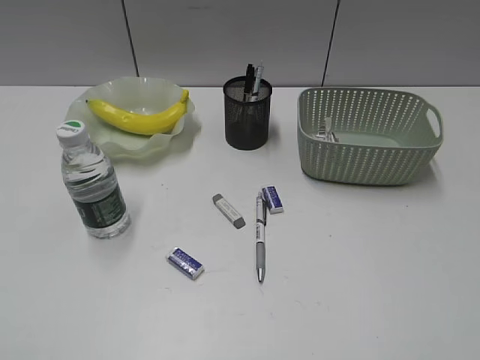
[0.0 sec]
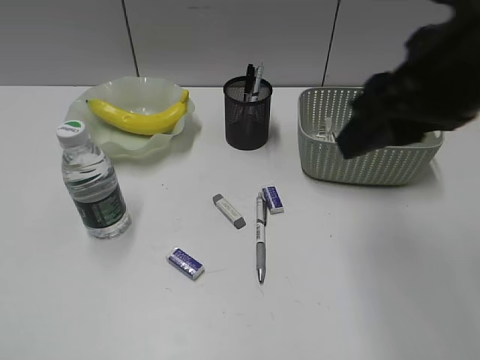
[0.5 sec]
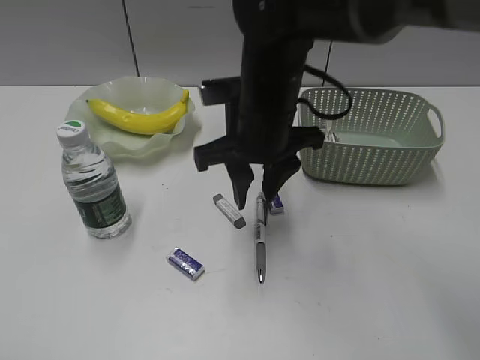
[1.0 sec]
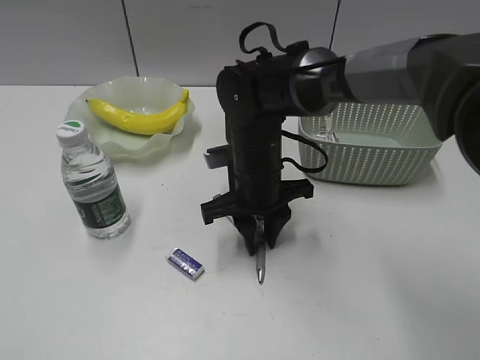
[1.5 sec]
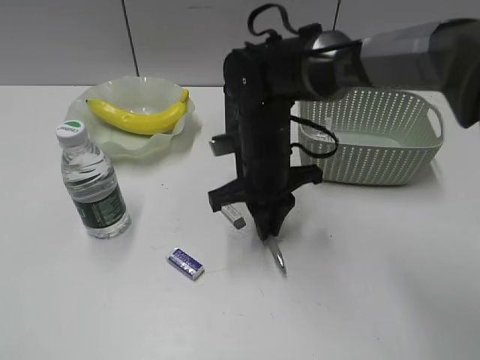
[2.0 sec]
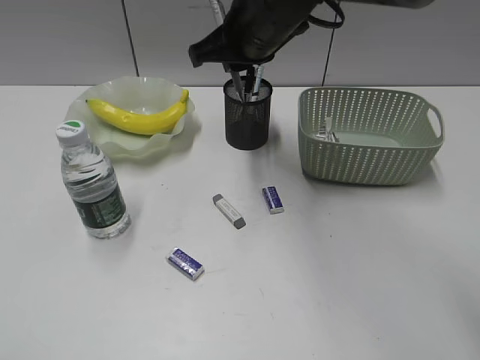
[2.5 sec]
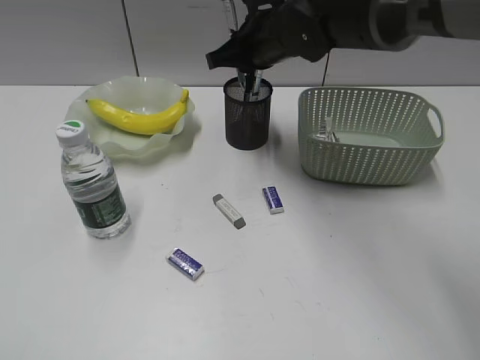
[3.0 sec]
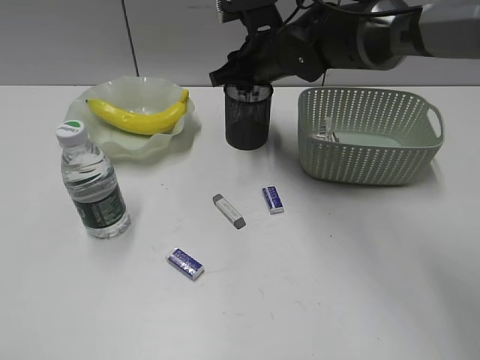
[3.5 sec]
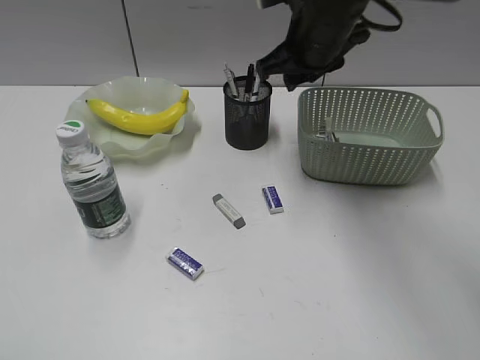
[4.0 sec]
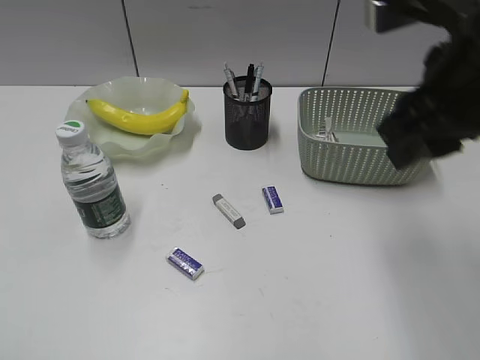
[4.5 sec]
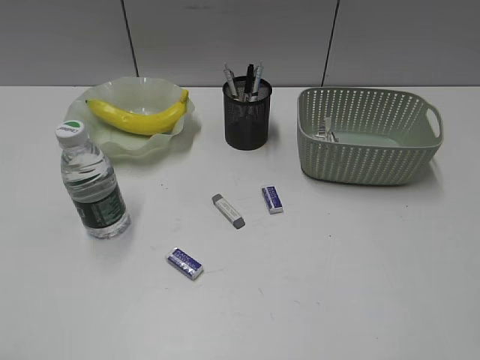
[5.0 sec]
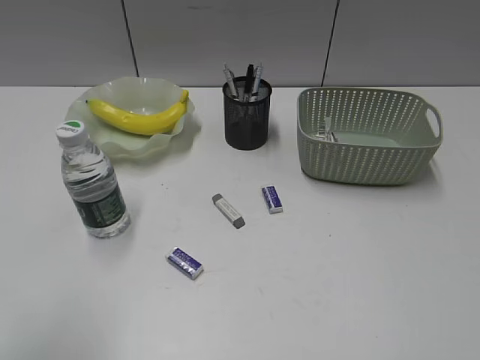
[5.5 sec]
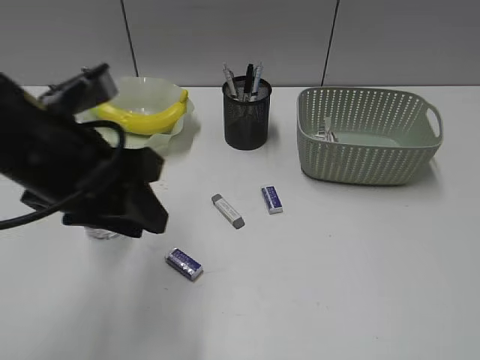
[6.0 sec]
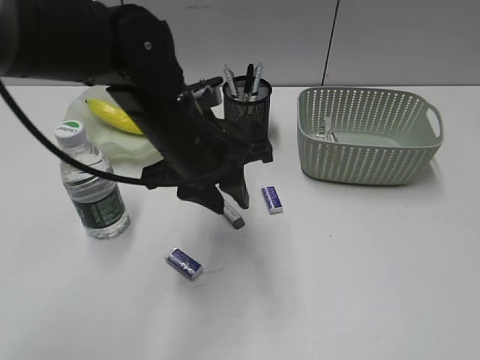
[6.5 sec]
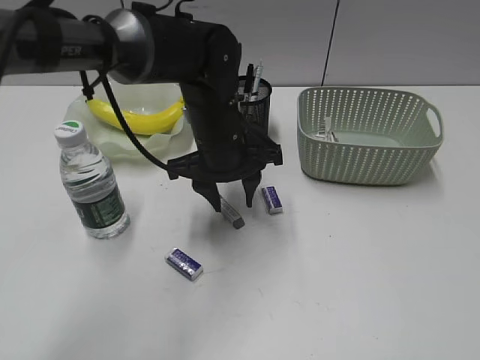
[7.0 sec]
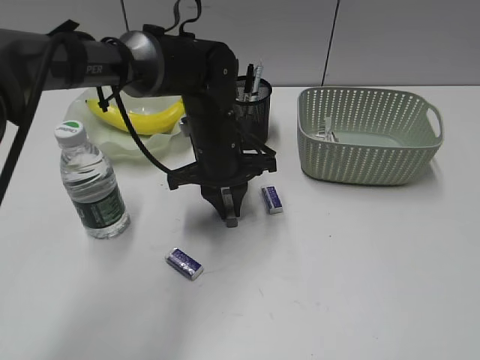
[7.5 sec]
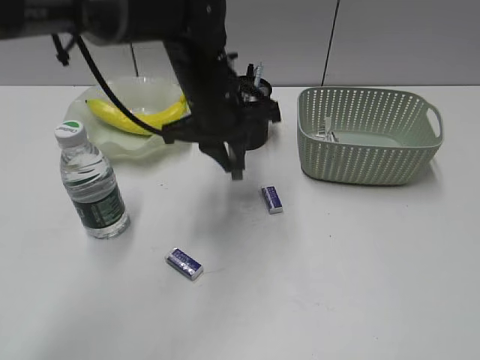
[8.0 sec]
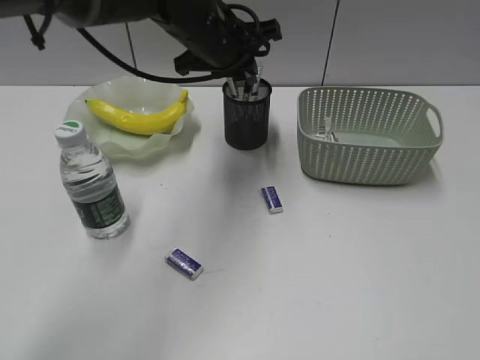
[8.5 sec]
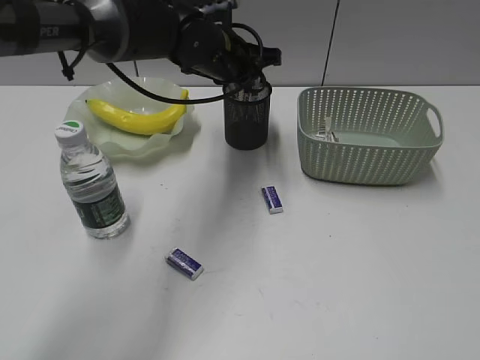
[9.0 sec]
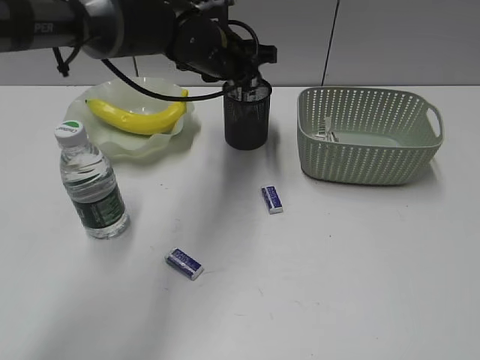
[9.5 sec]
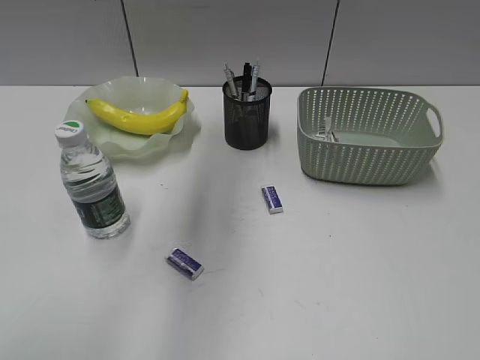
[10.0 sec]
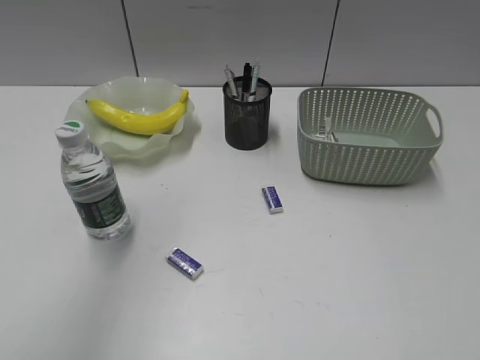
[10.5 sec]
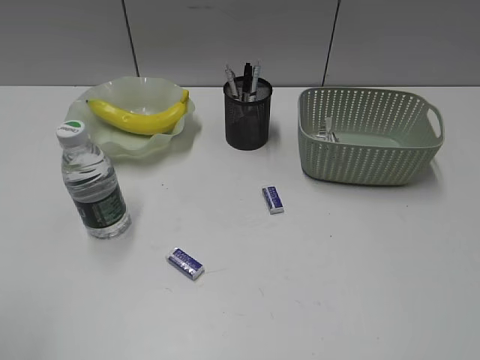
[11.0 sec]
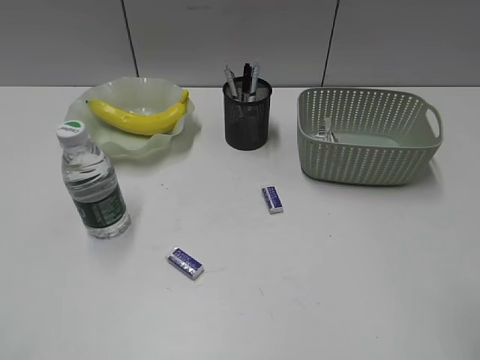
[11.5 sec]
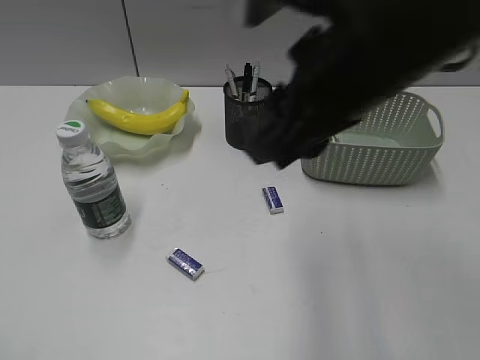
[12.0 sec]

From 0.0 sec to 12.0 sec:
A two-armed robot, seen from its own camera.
Step, from 2.0 sec to 3.5 sec: Place the gray pen in pen holder with right gripper.
Step, from 4.0 sec to 7.5 sec: Grasp the eraser with left gripper.
Step, from 8.0 sec to 9.5 sec: Place the eraser in pen holder with left gripper.
From 0.0 sec to 2.0 sec: The right gripper moves forward, to the left and downward, roughly 50 cm, and closes.
From 2.0 sec to 4.0 sec: The right gripper swings up and down, about 15 cm each way, with 2 reversals, and opens.
From 4.0 sec to 6.0 sec: The right gripper shifts roughly 50 cm backward and to the right. Meanwhile the left gripper shifts roughly 25 cm forward and to the right.
From 6.0 sec to 8.0 sec: The left gripper is displaced forward, to the right and downward by roughly 25 cm.
From 8.0 sec to 10.0 sec: The left gripper swings up and down, roughly 20 cm each way, with 2 reversals, and opens its fingers.
From 10.0 sec to 12.0 sec: The left gripper goes roughly 40 cm backward and to the left. Meanwhile the right gripper goes approximately 30 cm forward and to the left.

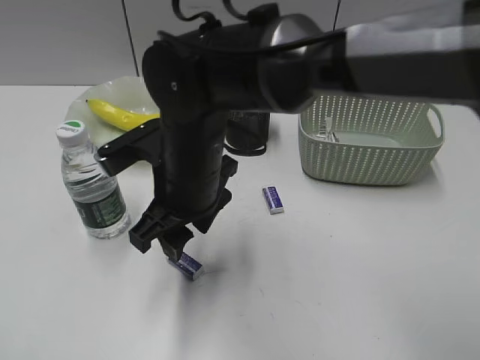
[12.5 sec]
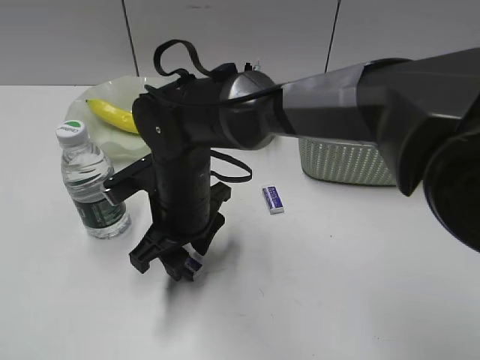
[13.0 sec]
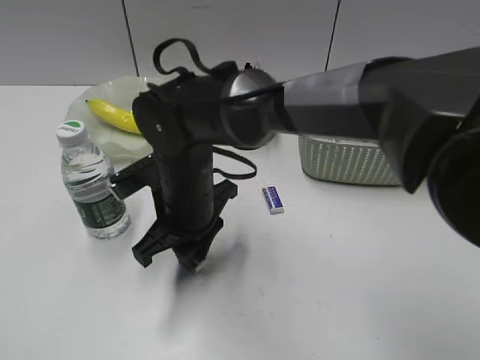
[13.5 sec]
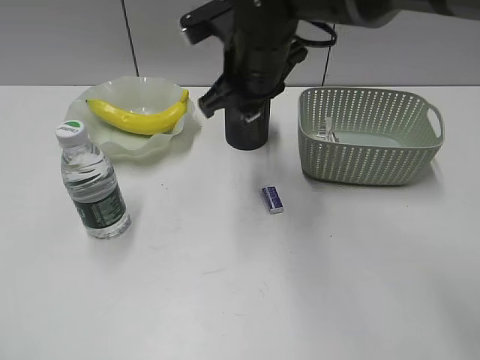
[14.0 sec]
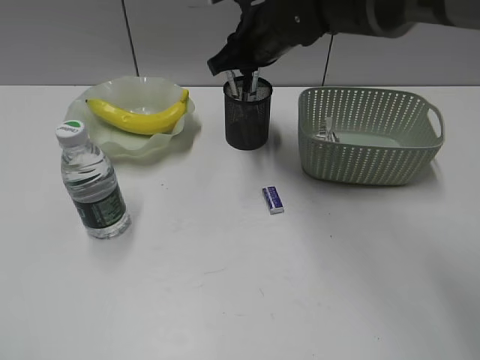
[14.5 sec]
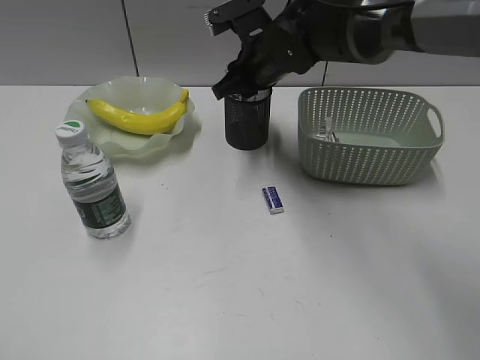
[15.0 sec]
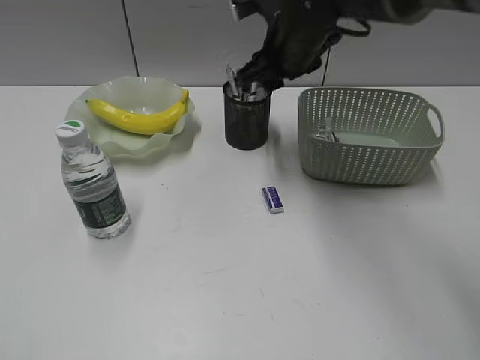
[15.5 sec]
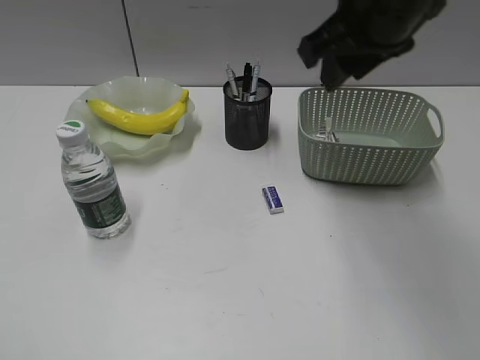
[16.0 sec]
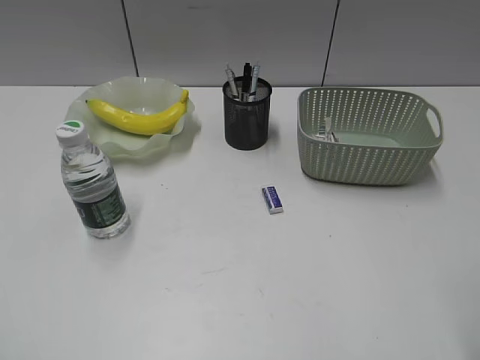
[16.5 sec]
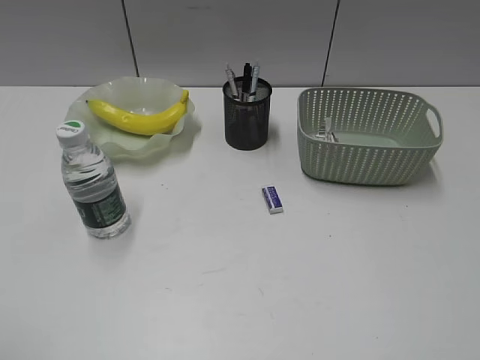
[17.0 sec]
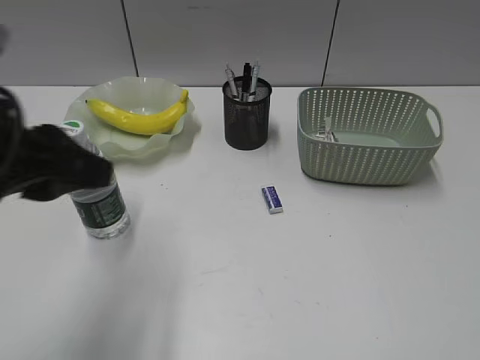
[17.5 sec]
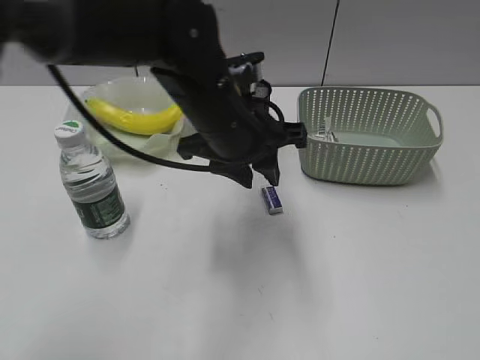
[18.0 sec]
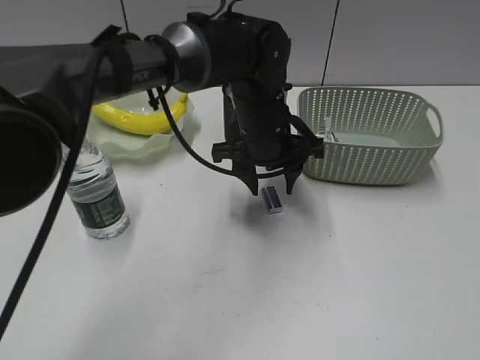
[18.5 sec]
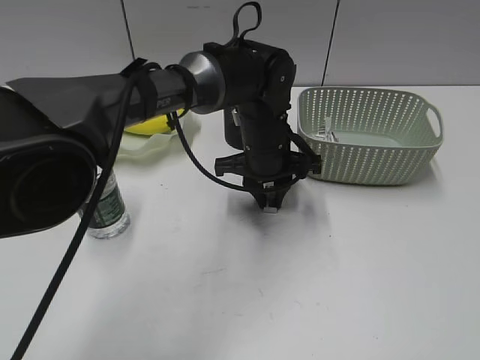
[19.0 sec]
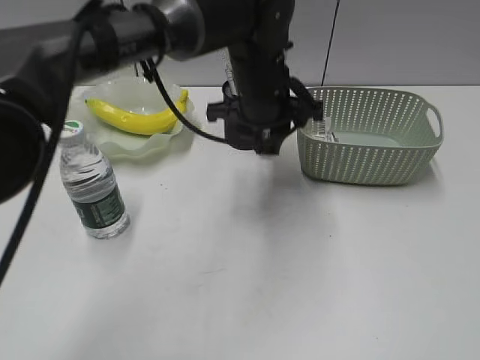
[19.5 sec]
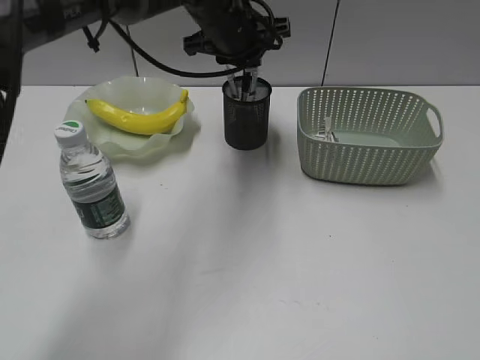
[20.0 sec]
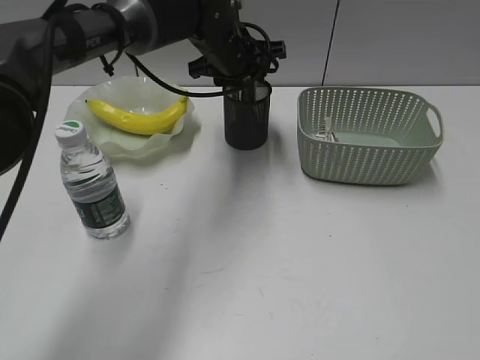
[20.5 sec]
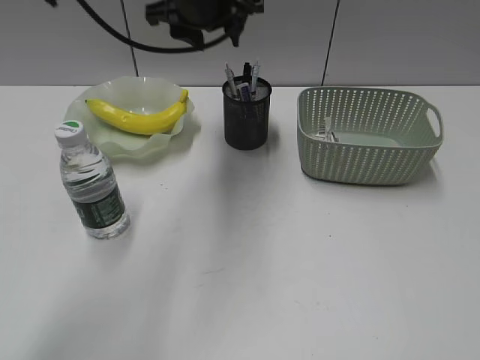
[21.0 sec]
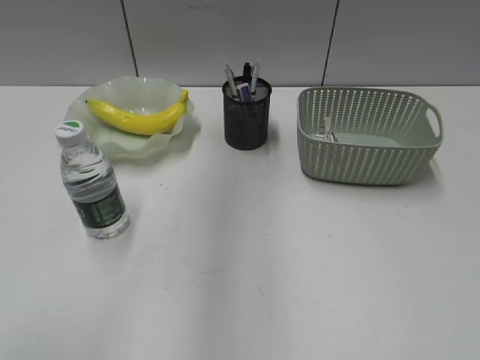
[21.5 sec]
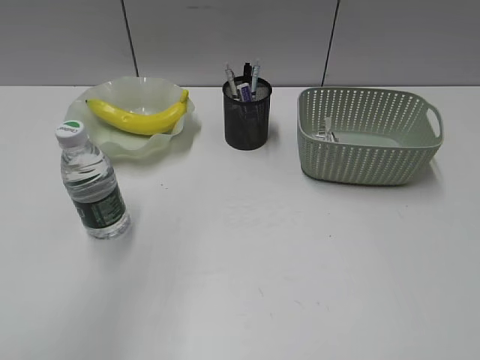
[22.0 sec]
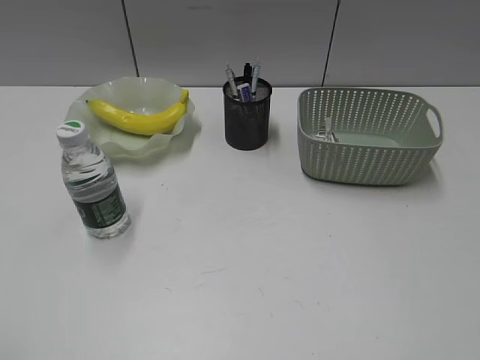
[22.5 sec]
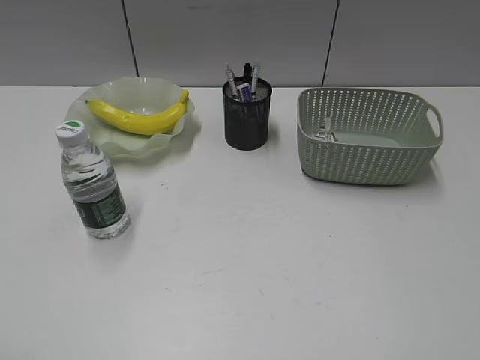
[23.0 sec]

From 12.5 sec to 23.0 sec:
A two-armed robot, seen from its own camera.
Step, from 13.5 sec to 15.0 sec: Place the eraser in pen holder with right gripper.
Step, from 15.5 sec to 19.0 sec: Grasp the eraser with left gripper.
Step, from 19.5 sec to 20.5 sec: Place the eraser in pen holder with left gripper.
From 12.5 sec to 14.5 sec: The right gripper shifts about 20 cm forward and to the right, and closes up.
From 14.5 sec to 16.5 sec: The right gripper shifts about 35 cm backward and to the right.
From 16.5 sec to 19.0 sec: The left gripper moves forward, to the right and downward, about 60 cm. Meanwhile the right gripper goes some 15 cm backward and to the right.
From 19.0 sec to 21.0 sec: The left gripper goes up and down, some 15 cm each way, reversing 2 times, and opens its fingers.
From 21.0 sec to 23.0 sec: The left gripper travels backward and to the left by roughly 50 cm.

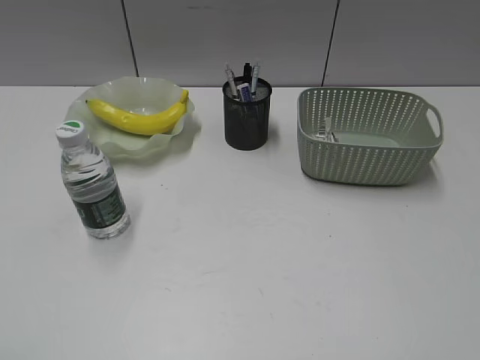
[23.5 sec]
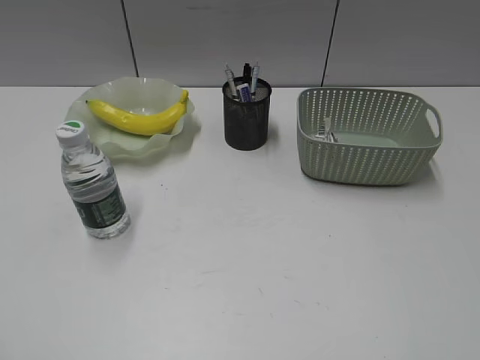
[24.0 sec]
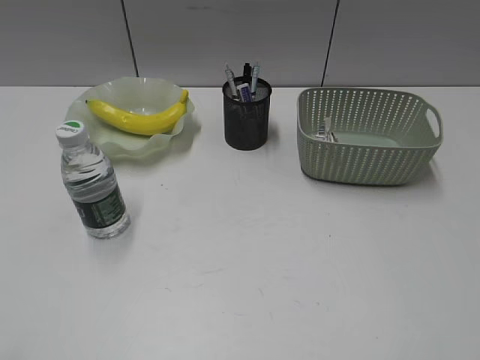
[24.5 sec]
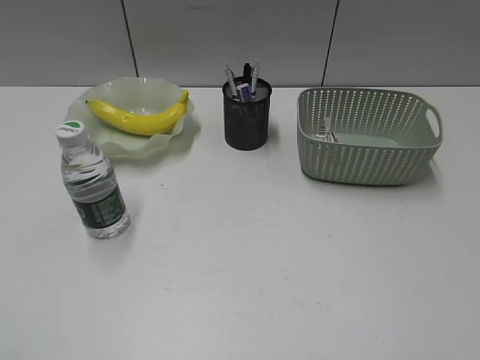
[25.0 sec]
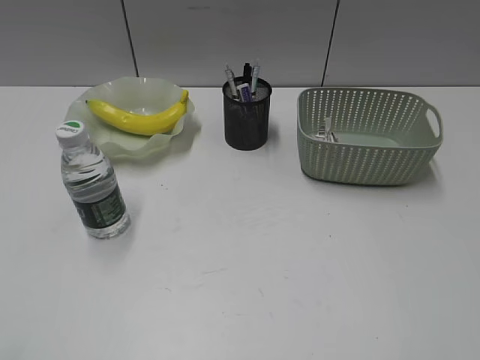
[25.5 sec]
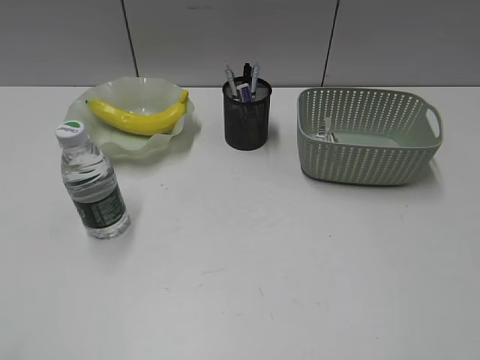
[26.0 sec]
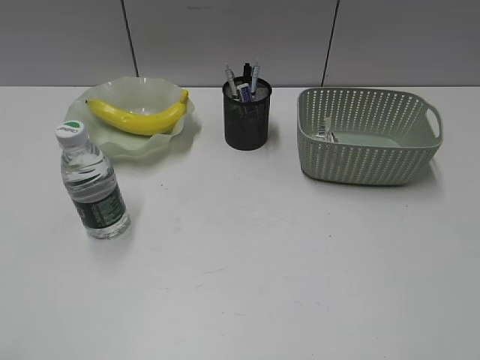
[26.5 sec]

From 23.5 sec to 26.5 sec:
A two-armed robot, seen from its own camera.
From 25.0 sec to 26.5 sec: Both grippers stay put.
